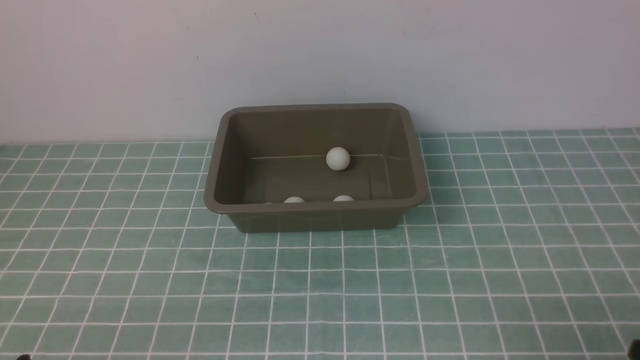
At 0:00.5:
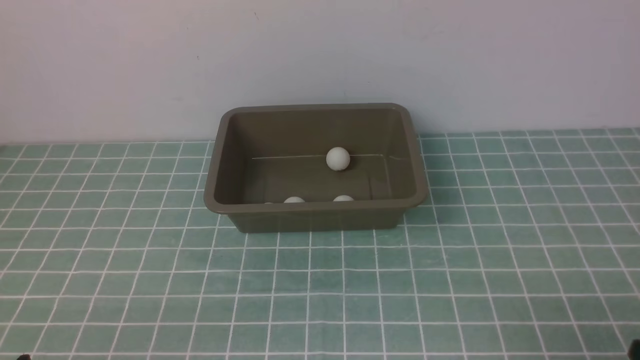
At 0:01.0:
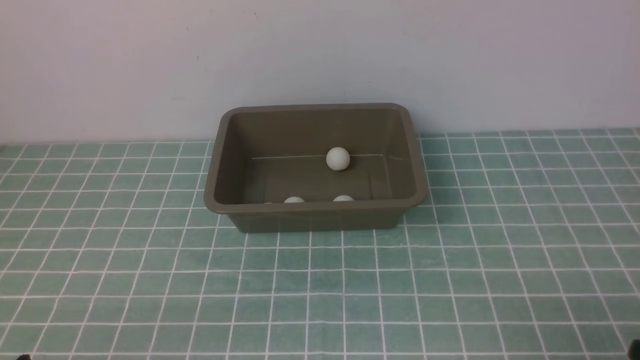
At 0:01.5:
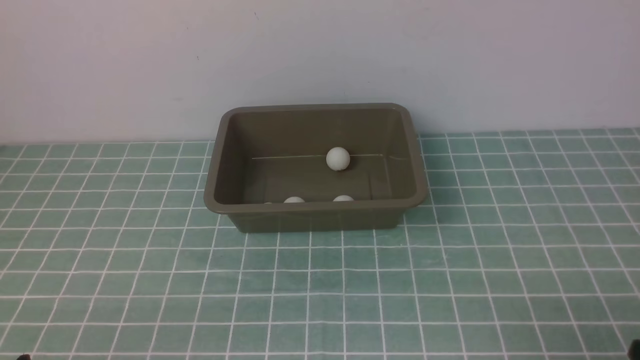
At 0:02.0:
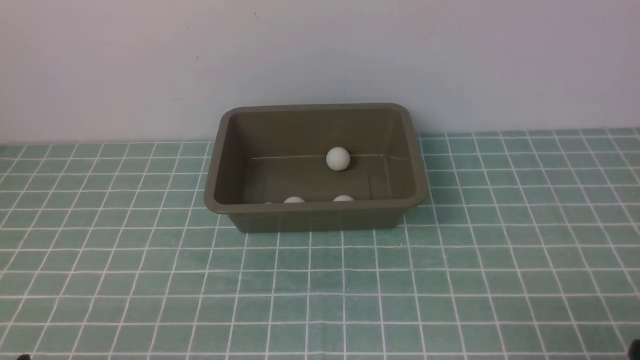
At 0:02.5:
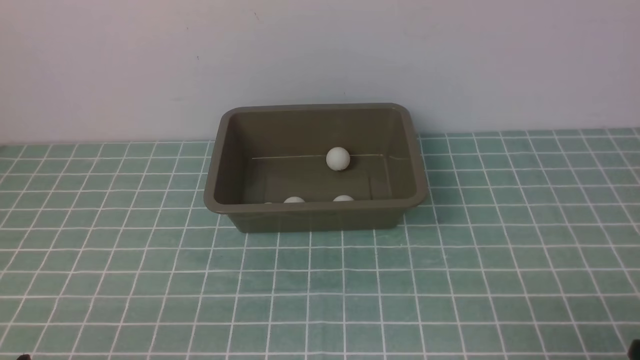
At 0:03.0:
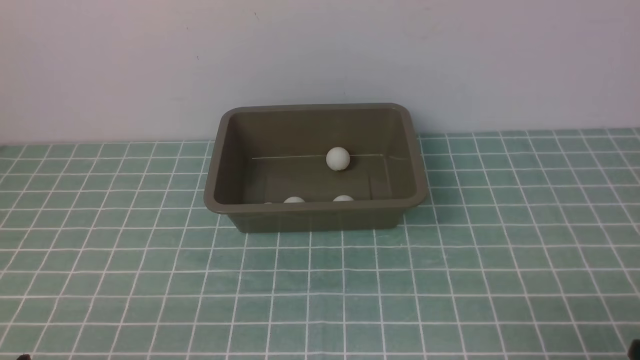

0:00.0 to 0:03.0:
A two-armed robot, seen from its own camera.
0:00.0 to 0:03.0: The two grippers keep their place.

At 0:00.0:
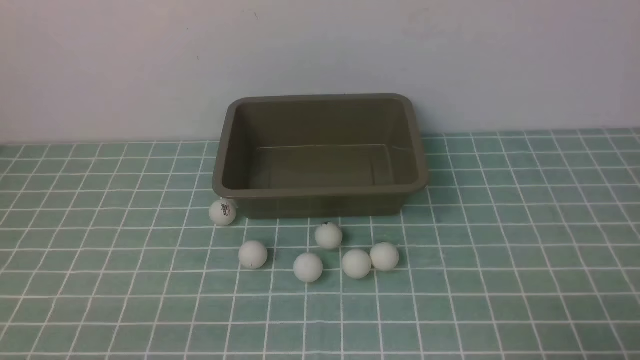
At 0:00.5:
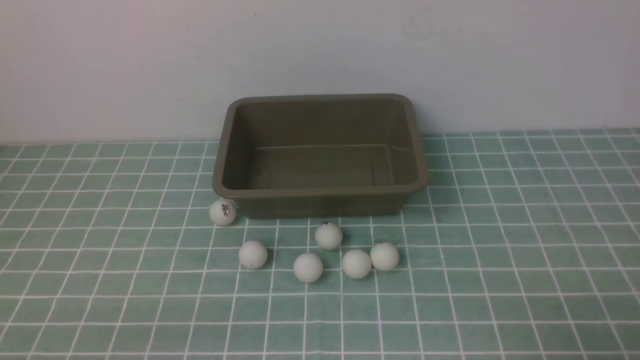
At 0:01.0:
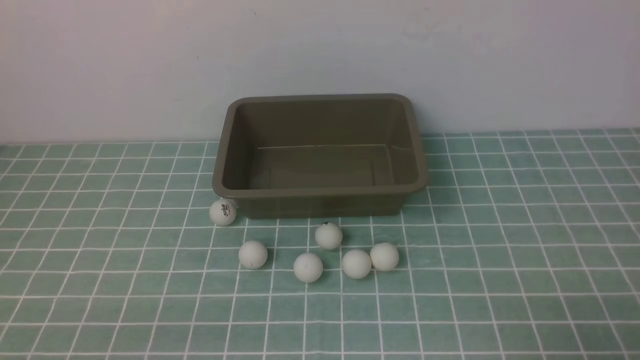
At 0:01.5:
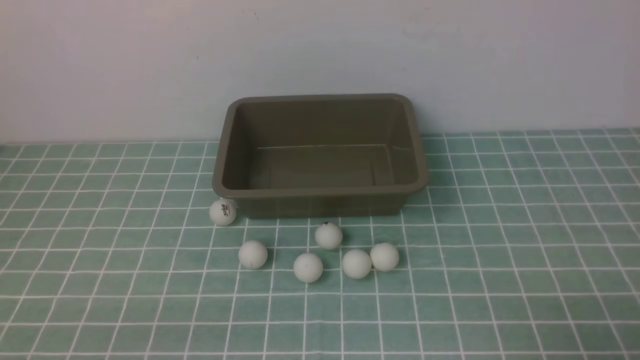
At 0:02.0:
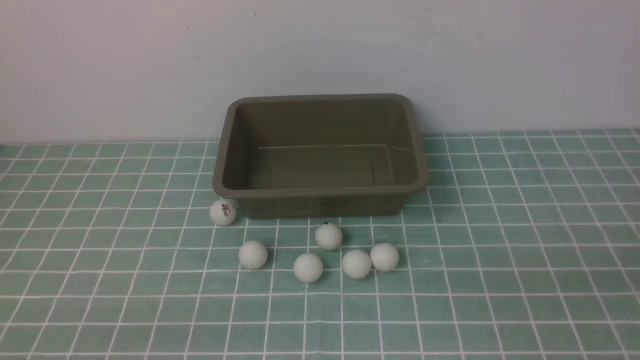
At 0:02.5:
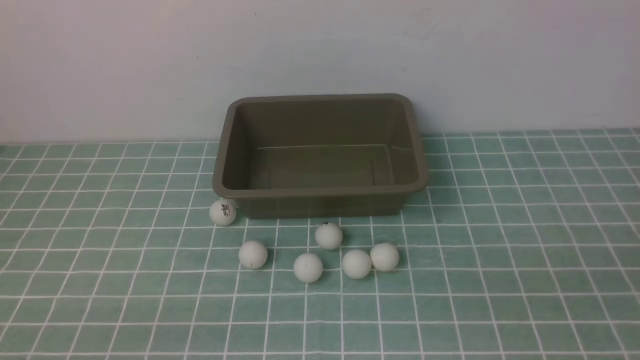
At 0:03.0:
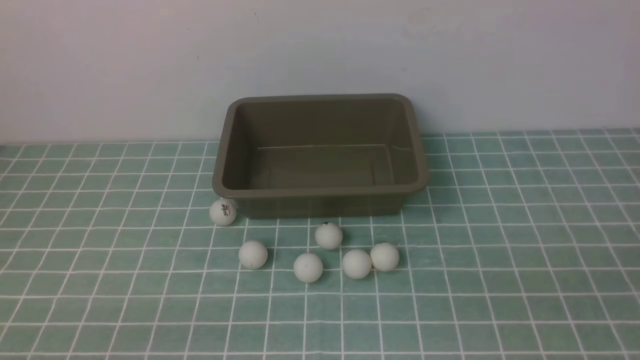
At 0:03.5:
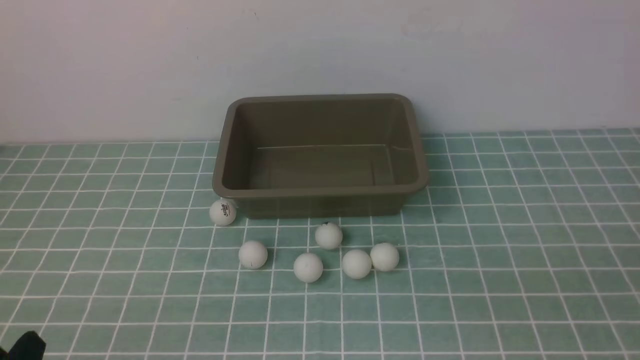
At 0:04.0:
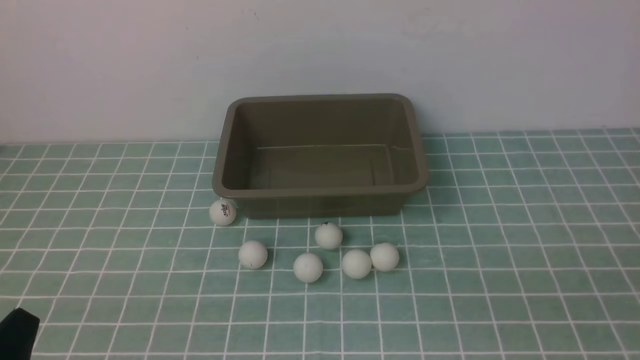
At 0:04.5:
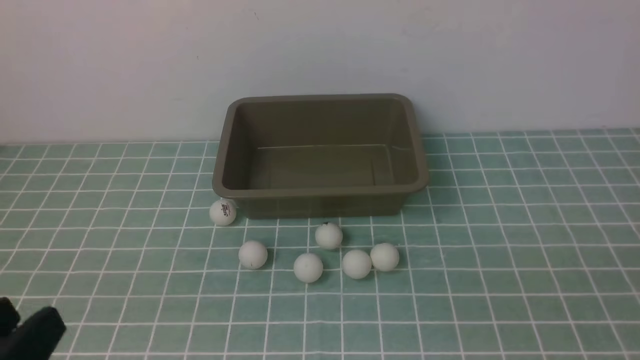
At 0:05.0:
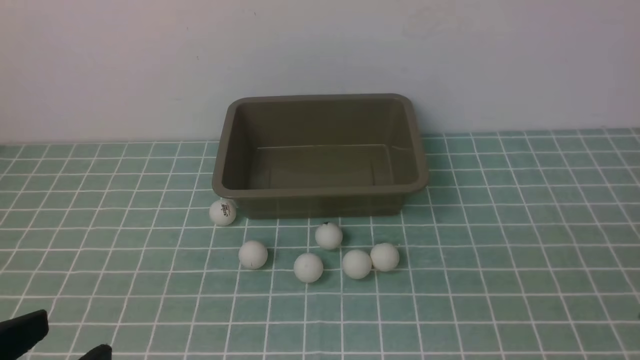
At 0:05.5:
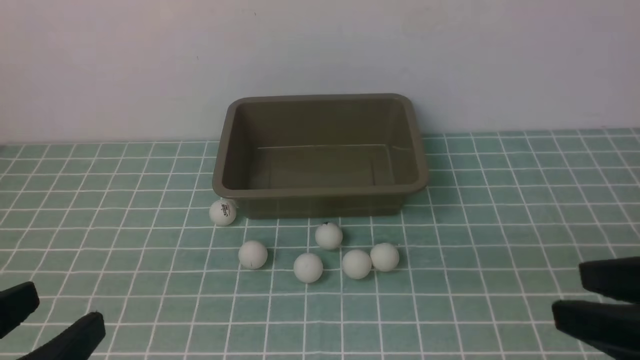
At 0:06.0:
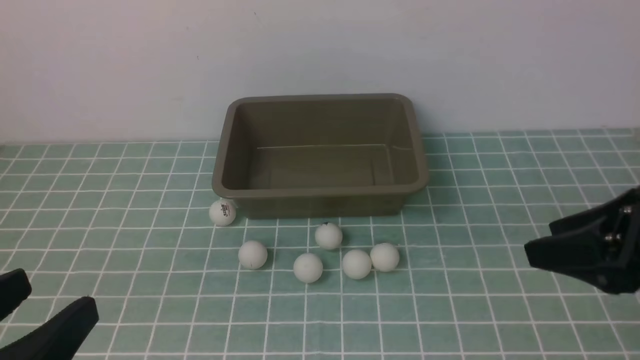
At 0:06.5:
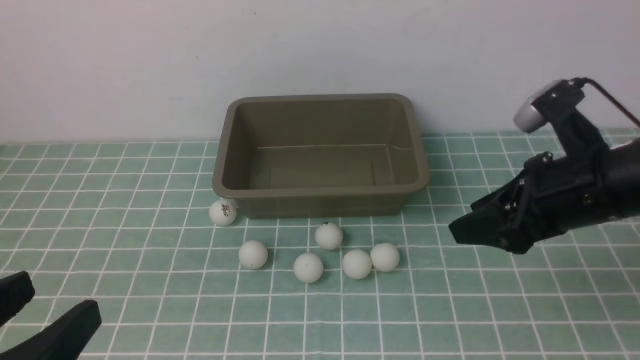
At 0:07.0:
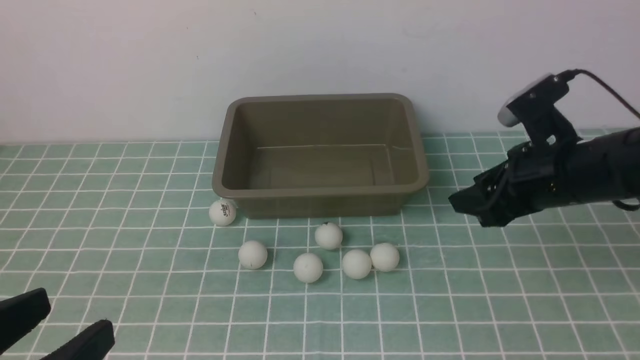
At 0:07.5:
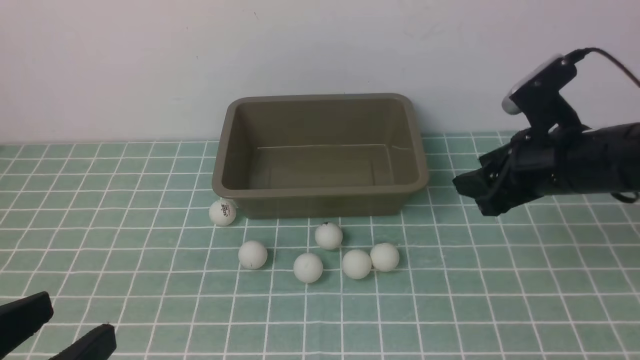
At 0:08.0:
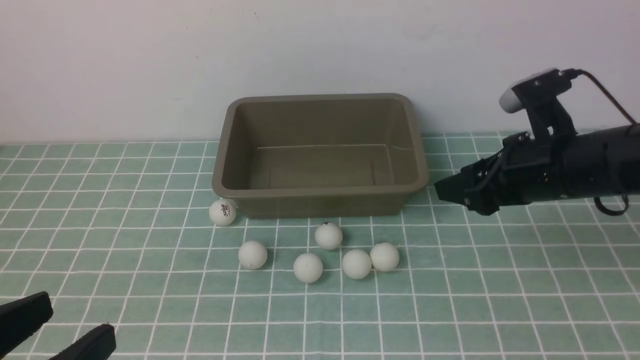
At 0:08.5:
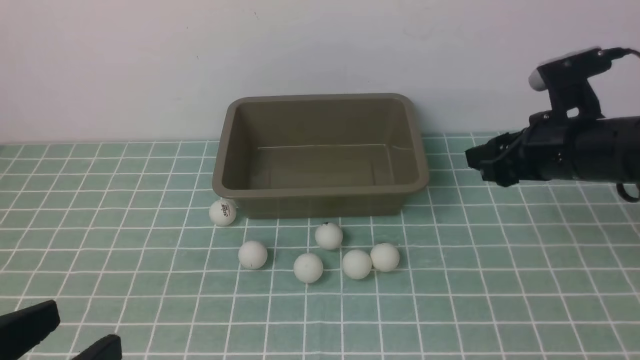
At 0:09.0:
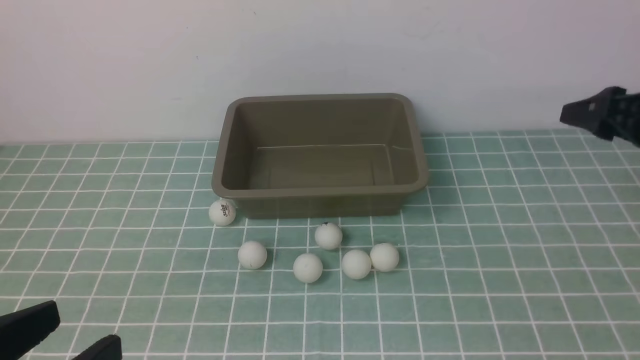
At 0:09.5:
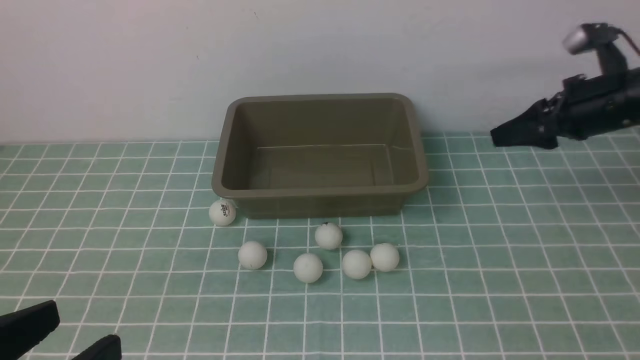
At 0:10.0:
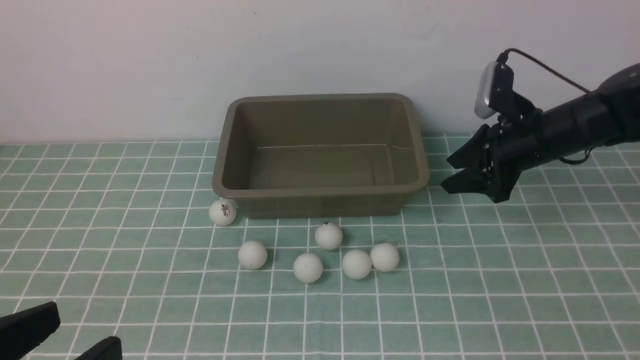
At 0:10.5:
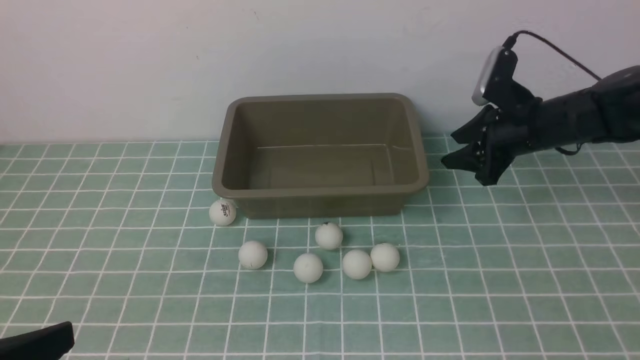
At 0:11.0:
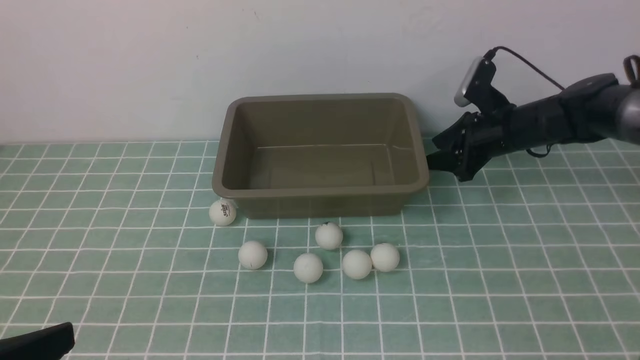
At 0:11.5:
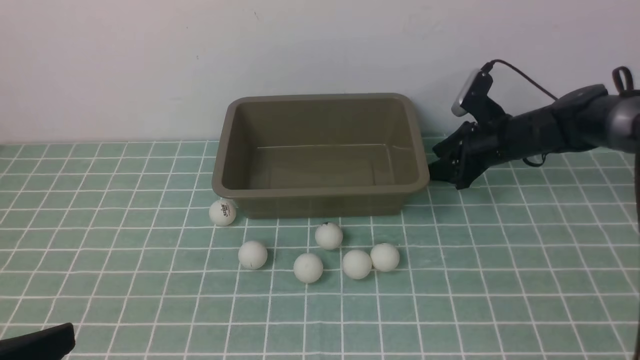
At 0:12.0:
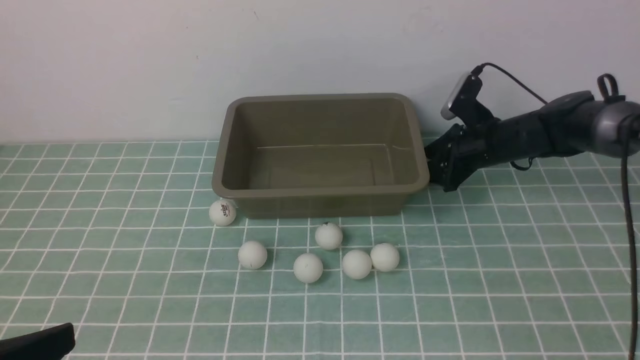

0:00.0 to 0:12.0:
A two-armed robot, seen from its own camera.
0:04.0 to 0:06.0: The left gripper travels upward by roughly 10 cm, and opens, while the right gripper goes some 20 cm forward.
0:06.0 to 0:08.0: The right gripper moves forward and downward, about 15 cm.
0:08.0 to 0:10.0: The right gripper shifts roughly 10 cm forward, and reaches some 10 cm to the right, then returns.
0:10.0 to 0:12.0: The right gripper goes approximately 10 cm downward and forward.

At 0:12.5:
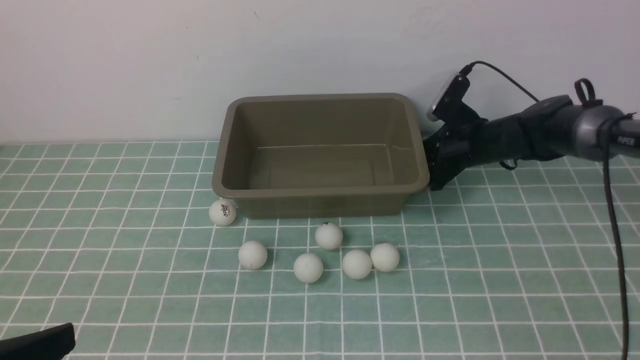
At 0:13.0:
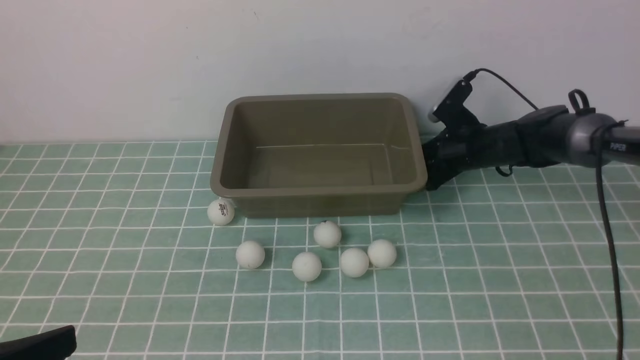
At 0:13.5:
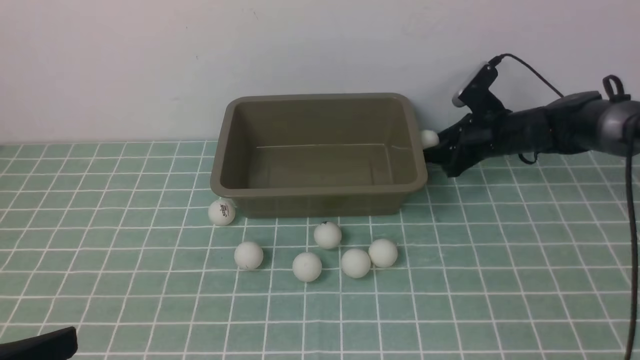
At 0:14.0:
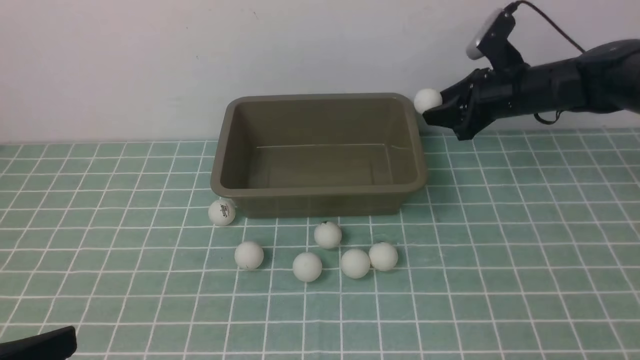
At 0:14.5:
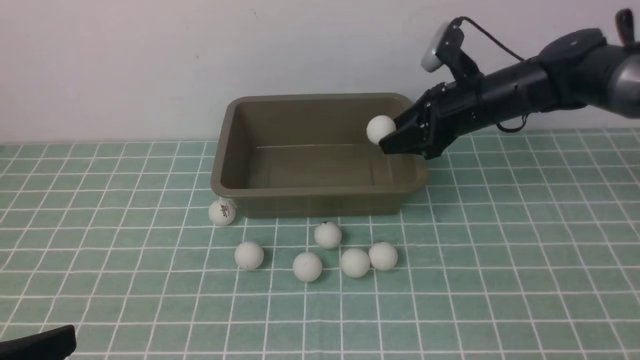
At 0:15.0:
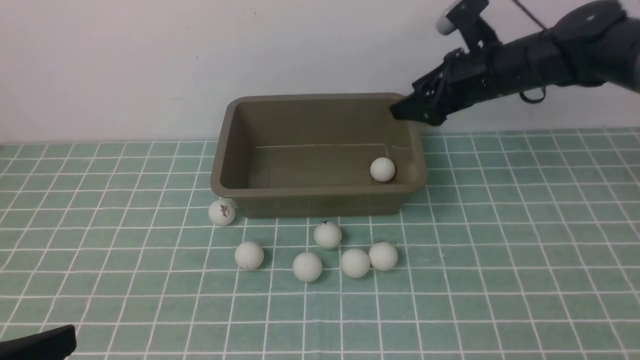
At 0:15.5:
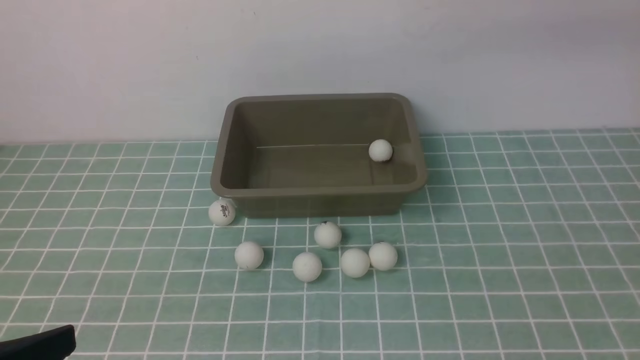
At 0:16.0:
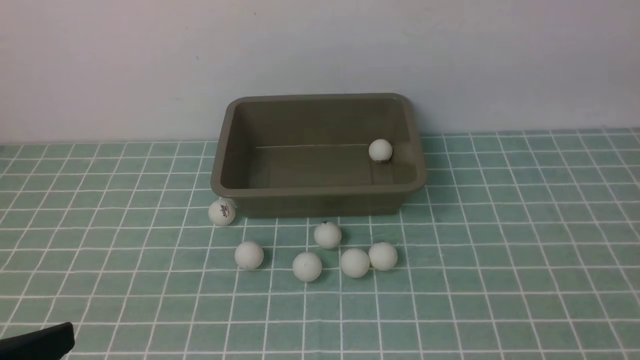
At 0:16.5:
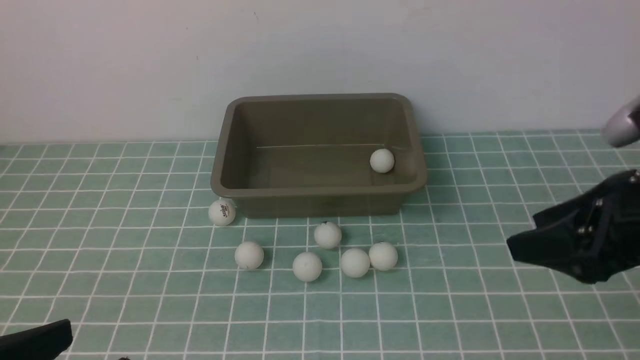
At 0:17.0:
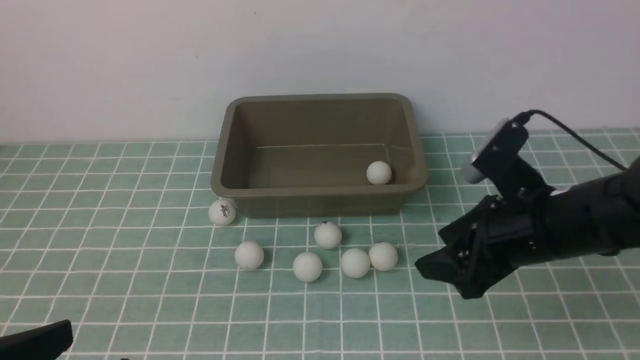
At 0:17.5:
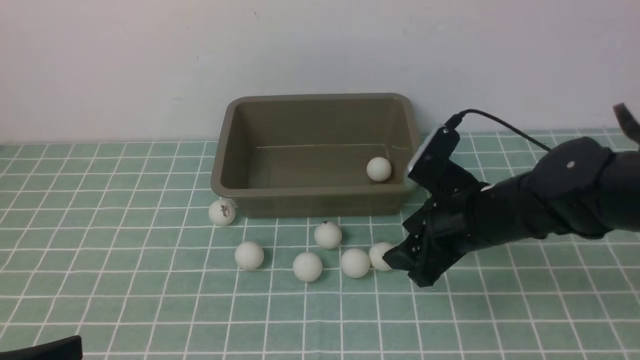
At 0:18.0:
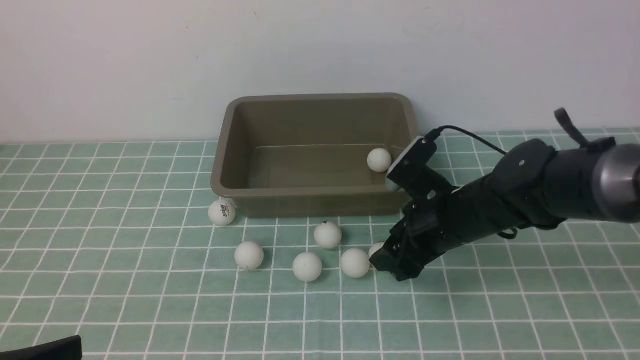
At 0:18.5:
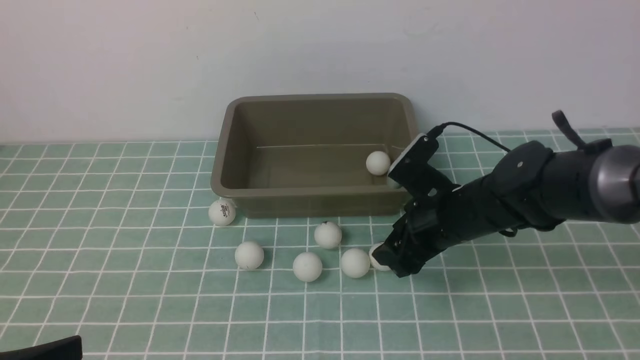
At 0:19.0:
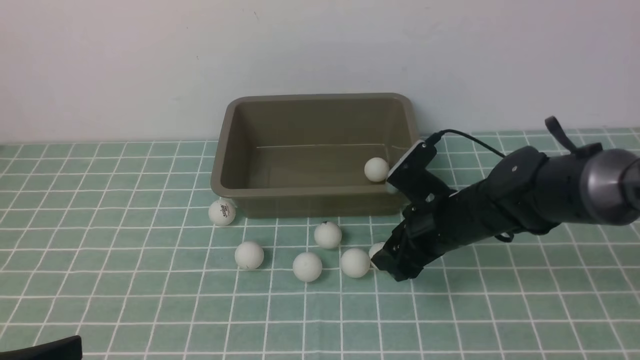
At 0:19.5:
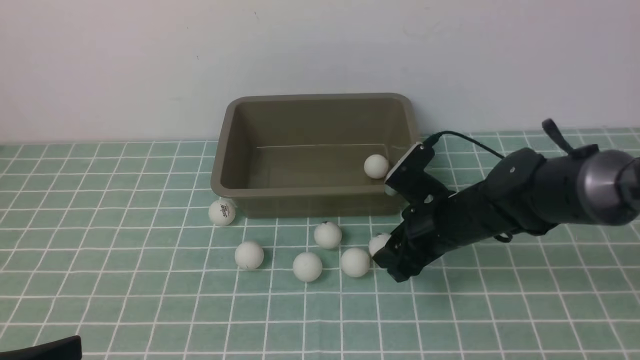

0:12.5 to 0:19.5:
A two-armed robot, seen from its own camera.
Step, 0:14.0 to 0:15.0: use the right arm to put the table tennis ball into the box.
0:12.5 to 0:14.5: The right gripper heads upward, covering some 10 cm, and closes.
0:14.5 to 0:16.0: The right gripper heads upward and backward, covering roughly 30 cm.
0:16.0 to 0:17.5: The right gripper moves downward and to the left, roughly 30 cm.
0:17.5 to 0:19.5: The right gripper changes place by some 5 cm, and closes its fingers.
